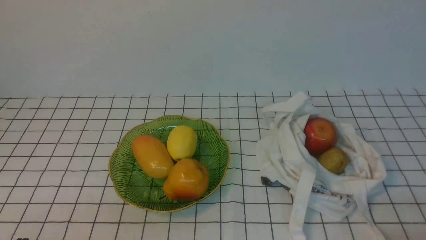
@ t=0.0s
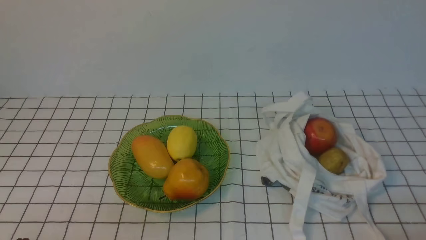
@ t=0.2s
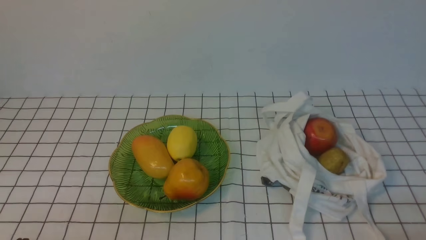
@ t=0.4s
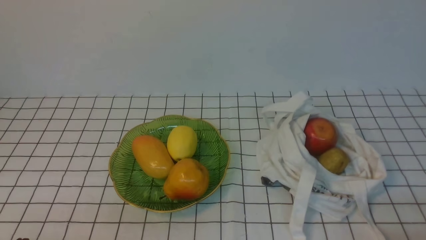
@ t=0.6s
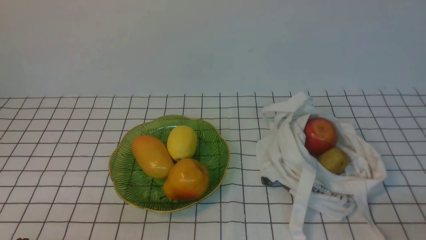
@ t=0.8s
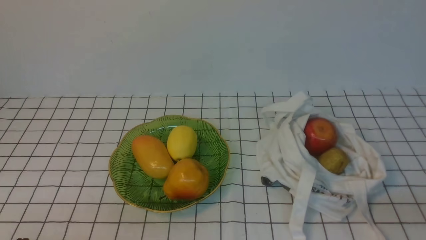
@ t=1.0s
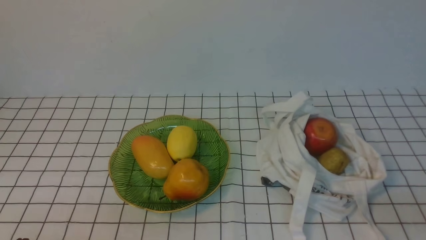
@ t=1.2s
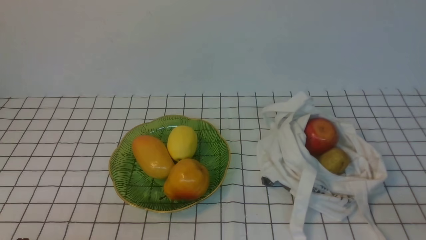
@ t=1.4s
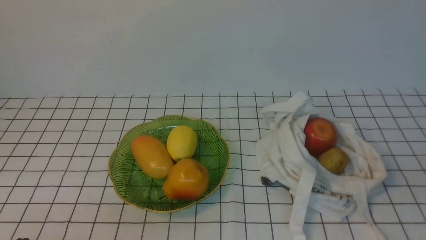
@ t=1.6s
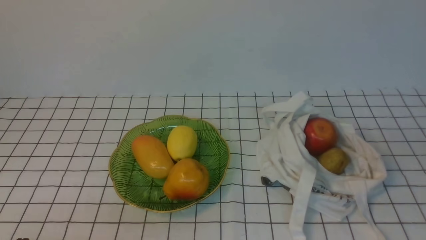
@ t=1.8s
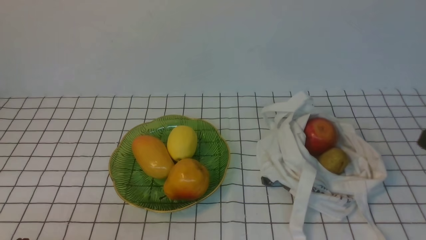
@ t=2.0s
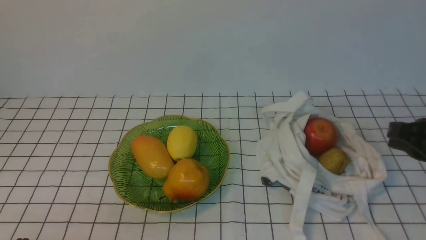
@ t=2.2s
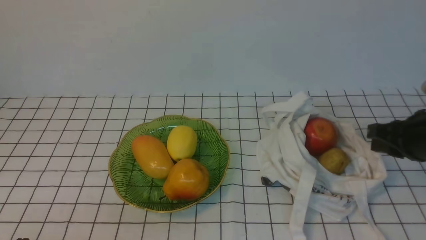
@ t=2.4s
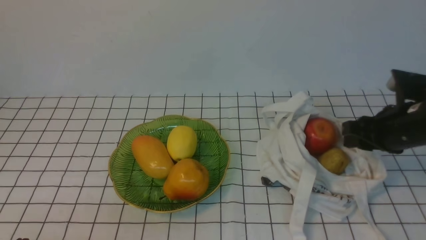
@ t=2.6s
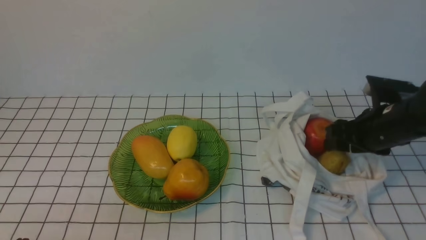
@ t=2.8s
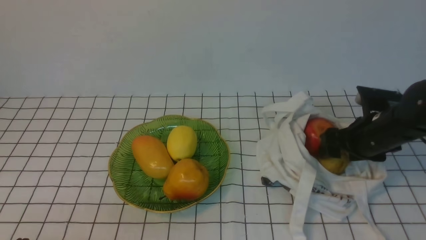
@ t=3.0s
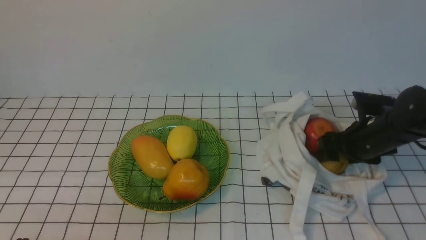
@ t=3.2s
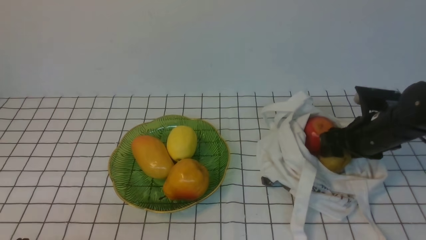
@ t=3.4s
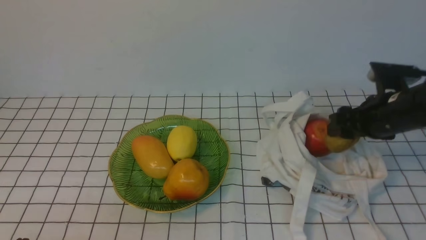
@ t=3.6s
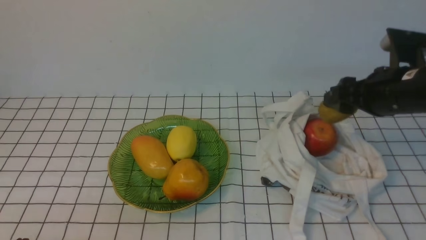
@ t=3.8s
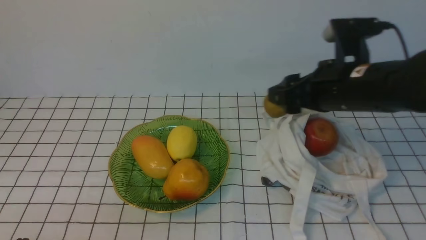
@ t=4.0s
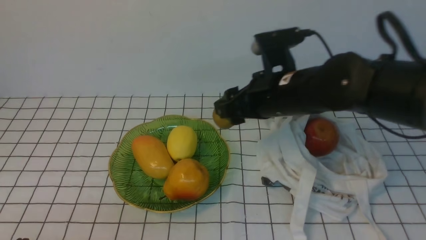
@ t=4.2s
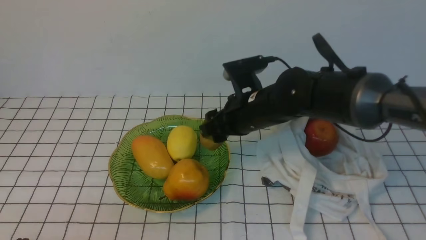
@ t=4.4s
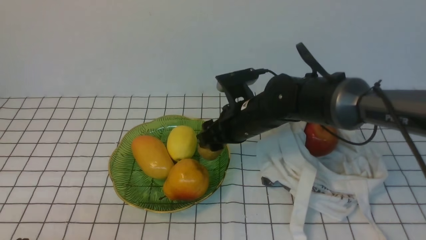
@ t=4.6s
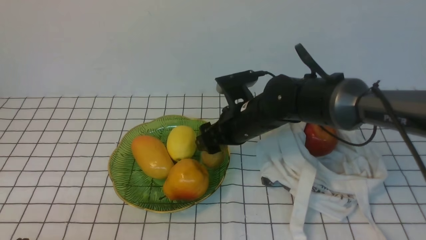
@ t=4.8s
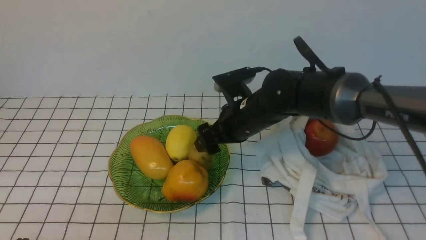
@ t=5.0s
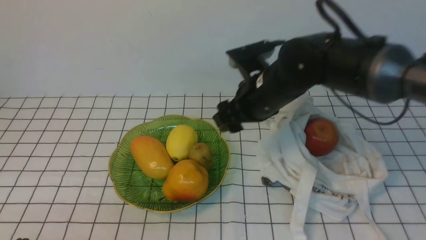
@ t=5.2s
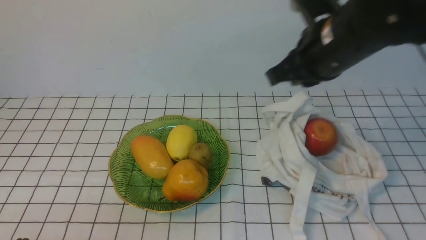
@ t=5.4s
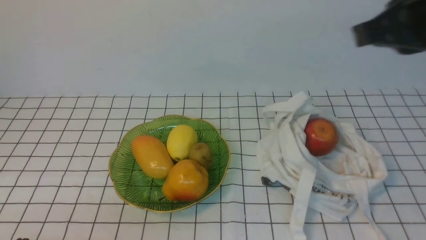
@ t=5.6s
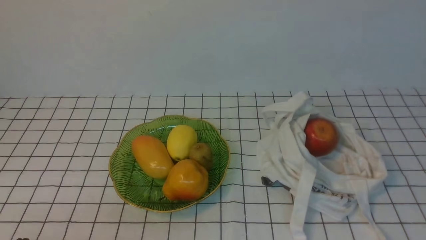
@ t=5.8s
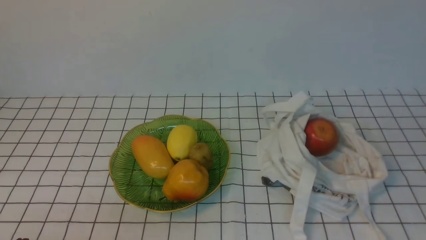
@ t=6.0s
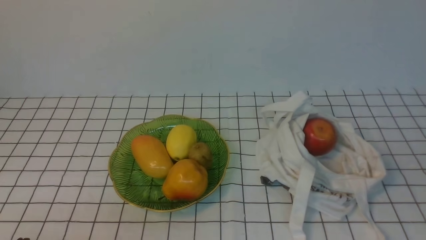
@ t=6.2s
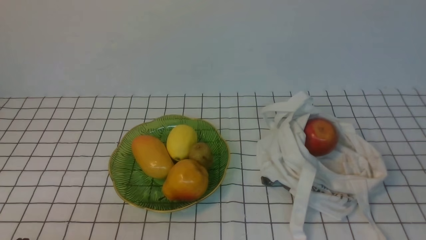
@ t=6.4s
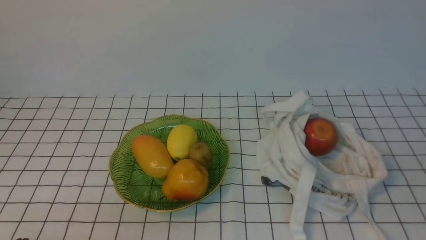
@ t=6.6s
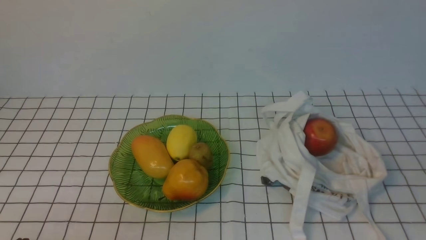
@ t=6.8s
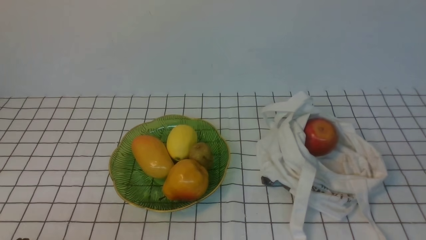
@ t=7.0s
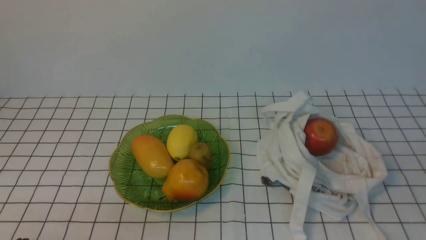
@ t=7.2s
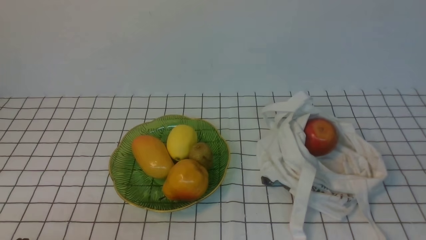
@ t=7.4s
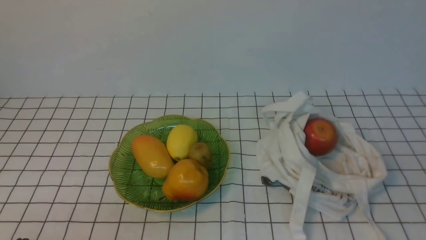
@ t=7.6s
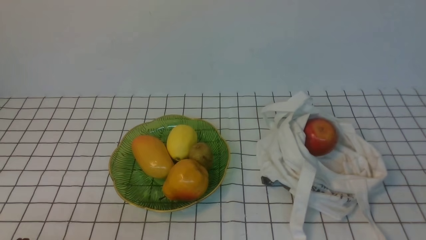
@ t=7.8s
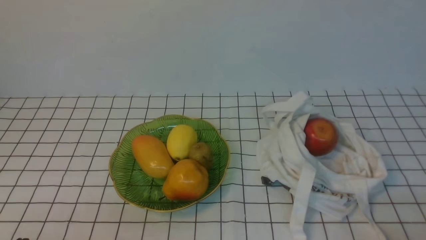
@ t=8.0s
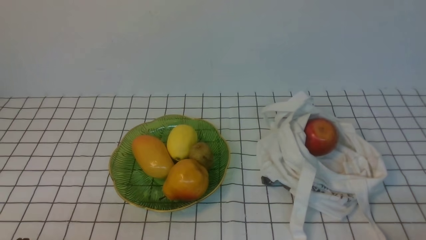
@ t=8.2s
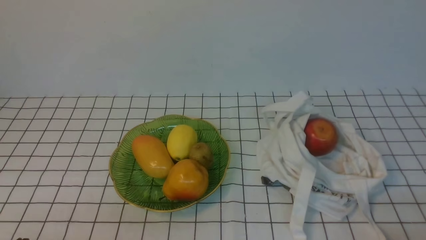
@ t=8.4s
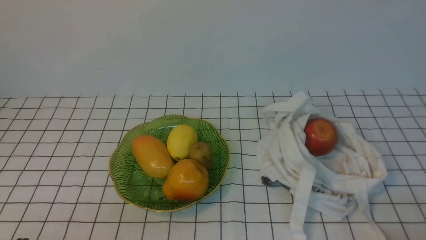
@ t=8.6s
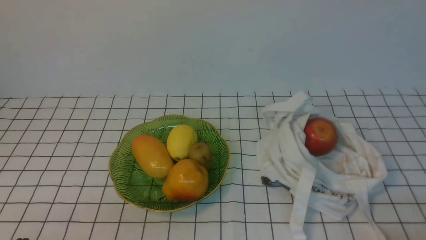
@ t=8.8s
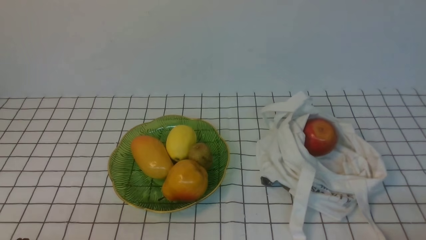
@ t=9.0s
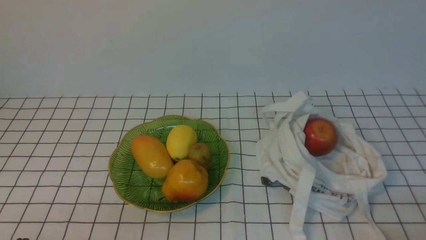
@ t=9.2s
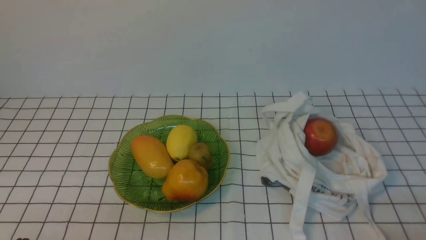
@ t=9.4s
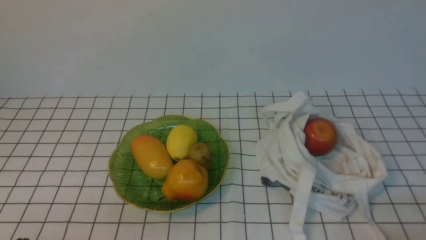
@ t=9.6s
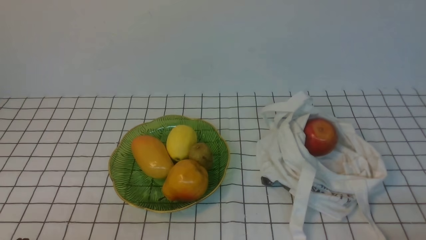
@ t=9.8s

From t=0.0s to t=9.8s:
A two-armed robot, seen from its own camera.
Step, from t=0.0s to t=3.4s: use the right arm to grab a kiwi from the bag.
Step, from t=3.6s to t=4.8s: use the right arm to put the kiwi into the empty plate on the left.
From t=1.4s to t=2.8s: The right gripper shifts roughly 25 cm forward, and opens up.
From t=2.8s to t=4.2s: The right gripper is displaced to the left by some 15 cm.
From t=4.2s to t=5.6s: The right gripper moves upward, backward and to the right, some 25 cm, and closes.
From t=5.6s to t=7.0s: The right gripper is displaced backward, downward and to the right by roughly 25 cm.
From t=8.4s to t=9.8s: Neither gripper changes place.
